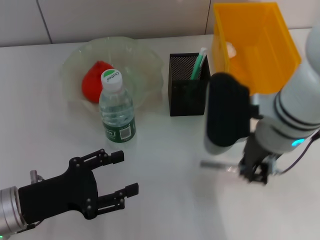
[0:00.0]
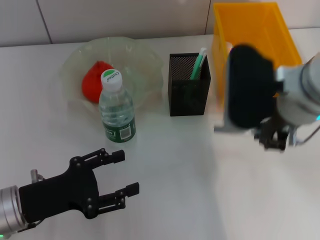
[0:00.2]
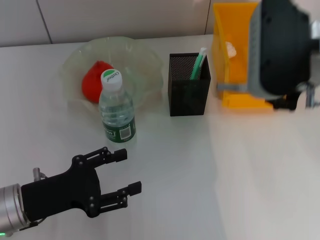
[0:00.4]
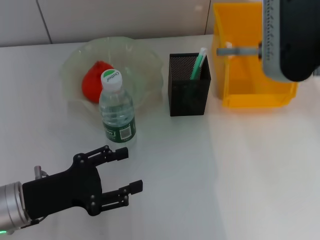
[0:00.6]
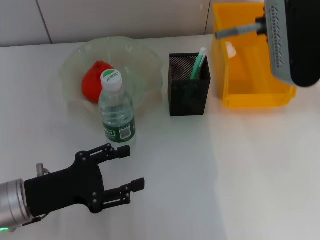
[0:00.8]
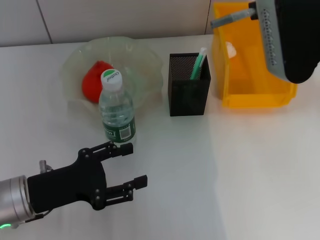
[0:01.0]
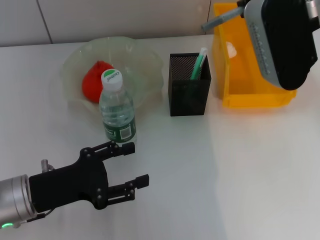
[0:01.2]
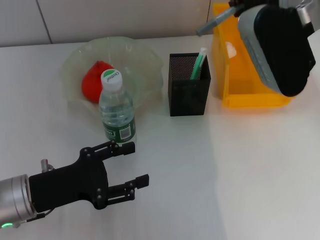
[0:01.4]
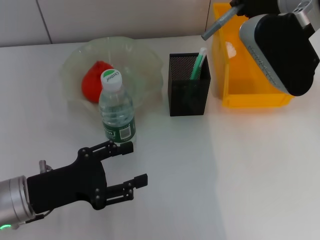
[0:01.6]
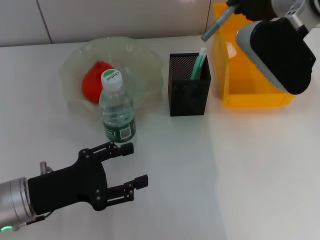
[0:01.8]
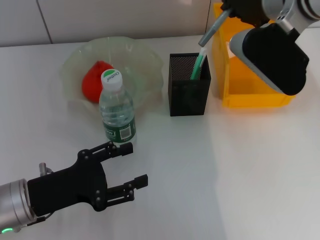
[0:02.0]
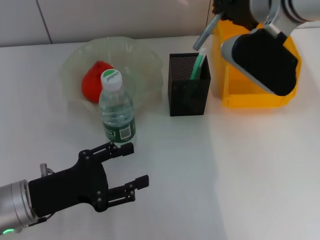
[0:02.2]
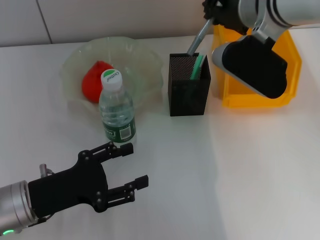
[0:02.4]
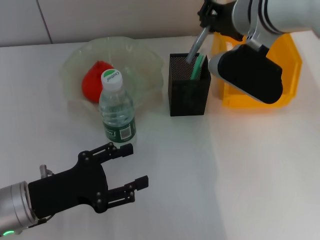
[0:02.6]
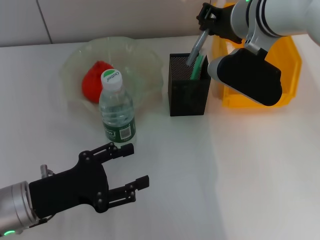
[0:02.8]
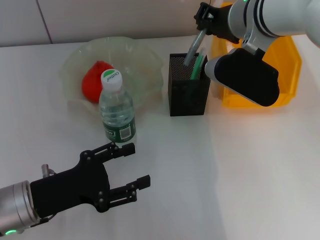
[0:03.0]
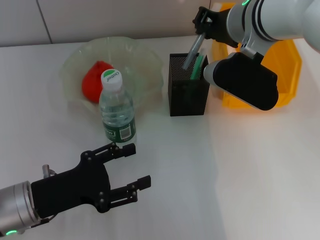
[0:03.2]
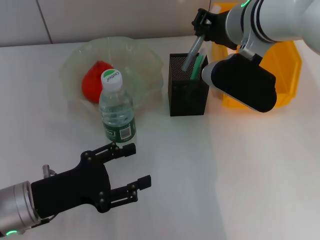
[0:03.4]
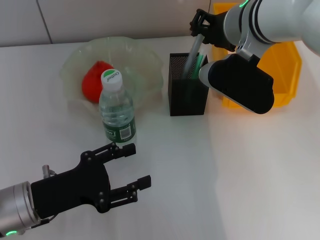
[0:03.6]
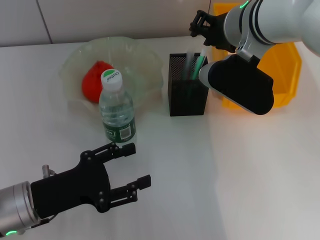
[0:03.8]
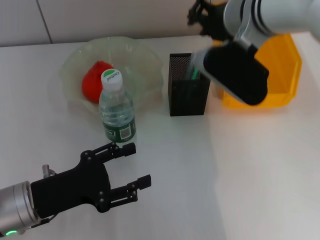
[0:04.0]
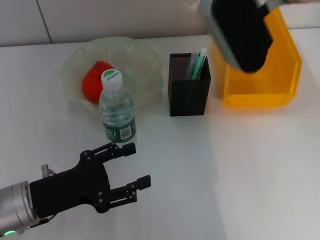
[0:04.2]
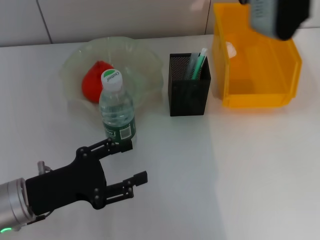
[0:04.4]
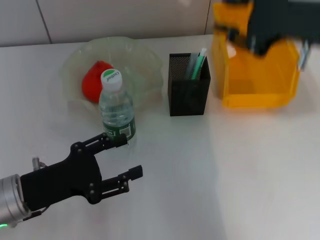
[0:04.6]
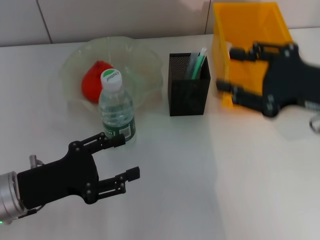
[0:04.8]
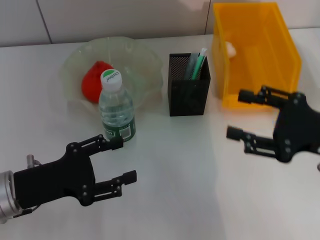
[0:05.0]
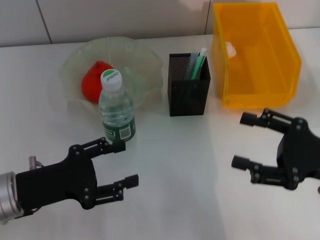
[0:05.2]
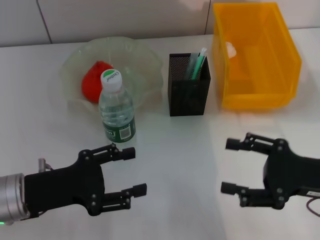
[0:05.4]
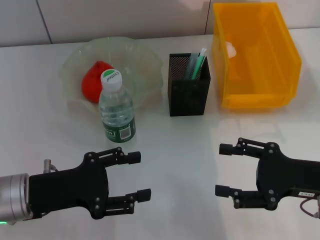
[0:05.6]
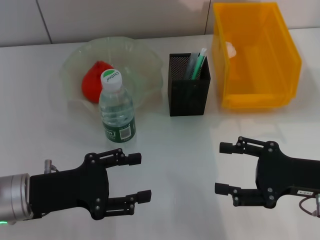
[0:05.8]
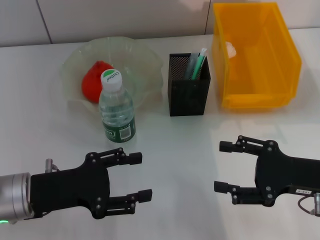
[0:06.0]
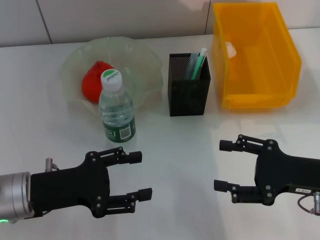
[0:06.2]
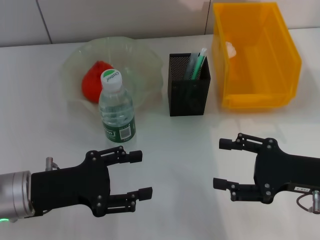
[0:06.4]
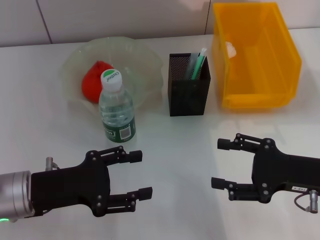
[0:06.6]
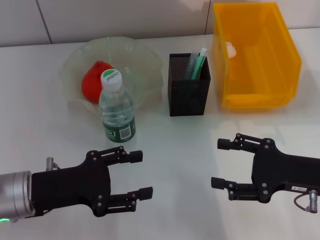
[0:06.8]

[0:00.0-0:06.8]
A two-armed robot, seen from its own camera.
Step, 0.0 to 4.0 s: Place the gray glue into the pen holder with the right hand.
0.0 to 1.4 s: The right gripper travels upward and forward by approximately 10 cm.
1.4 to 2.8 s: The right gripper travels downward by some 5 cm.
2.8 to 4.0 s: There are only small adjustments of the grippers.
4.0 to 5.4 s: The right gripper moves backward, to the right and downward, roughly 25 cm, and opens its fingers.
5.4 to 6.8 s: The grippers stay close to where they were, moving slightly.

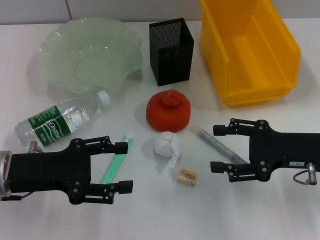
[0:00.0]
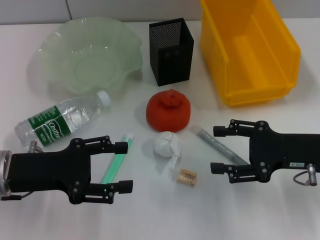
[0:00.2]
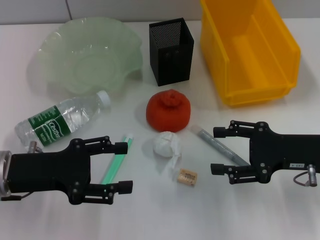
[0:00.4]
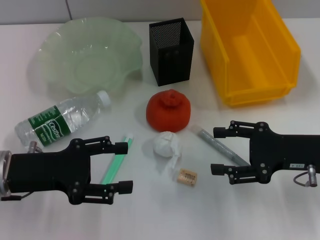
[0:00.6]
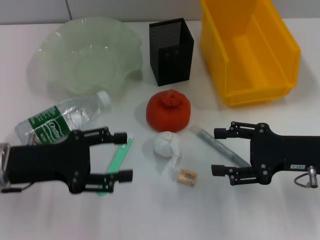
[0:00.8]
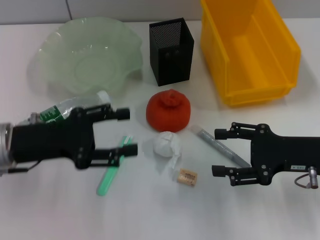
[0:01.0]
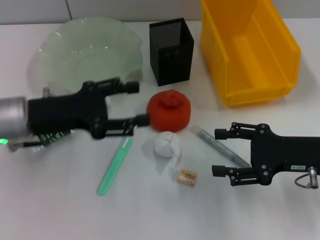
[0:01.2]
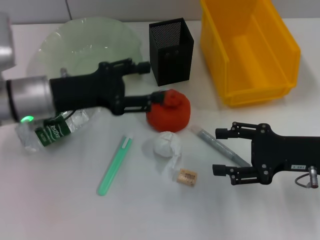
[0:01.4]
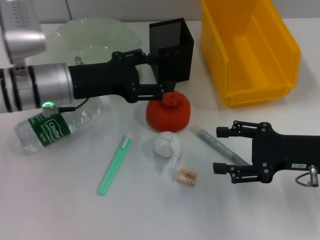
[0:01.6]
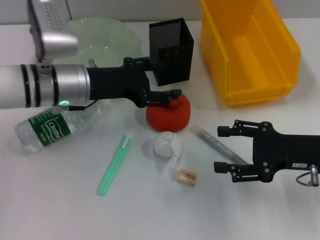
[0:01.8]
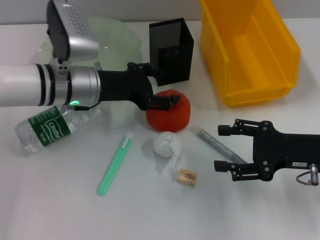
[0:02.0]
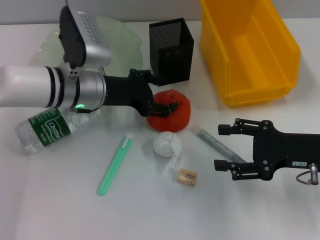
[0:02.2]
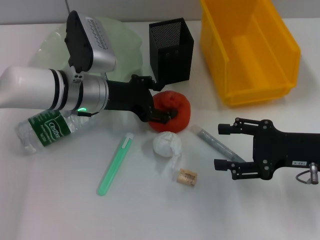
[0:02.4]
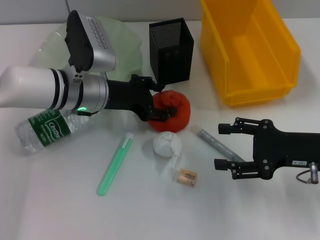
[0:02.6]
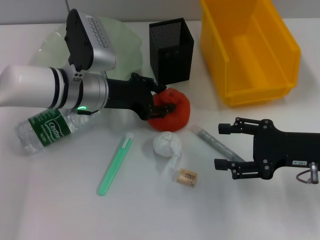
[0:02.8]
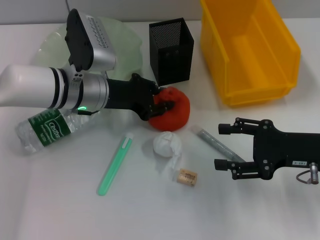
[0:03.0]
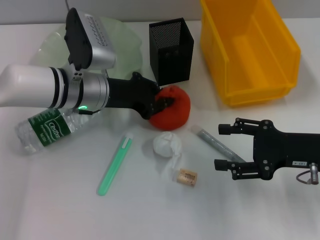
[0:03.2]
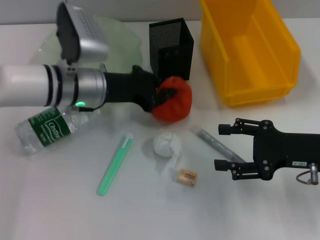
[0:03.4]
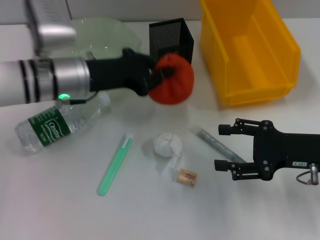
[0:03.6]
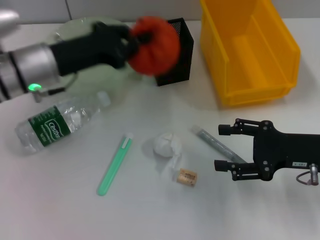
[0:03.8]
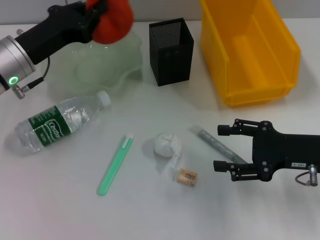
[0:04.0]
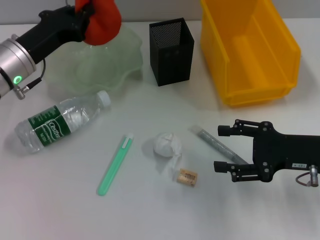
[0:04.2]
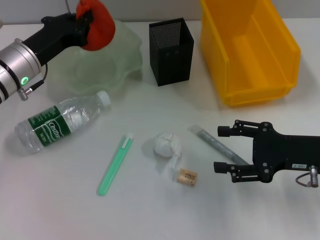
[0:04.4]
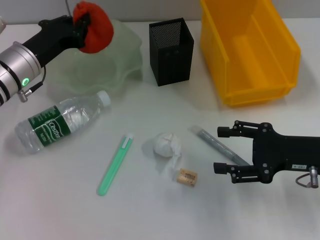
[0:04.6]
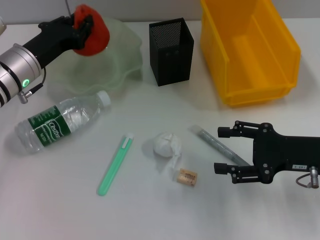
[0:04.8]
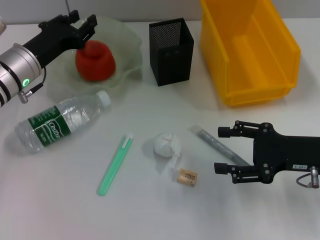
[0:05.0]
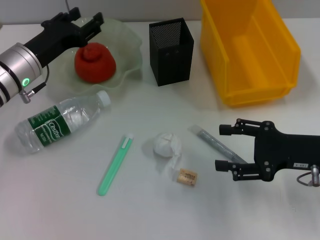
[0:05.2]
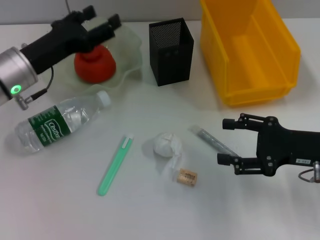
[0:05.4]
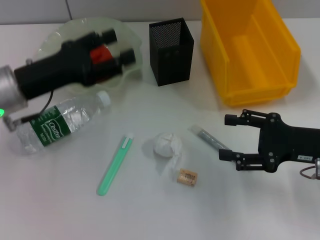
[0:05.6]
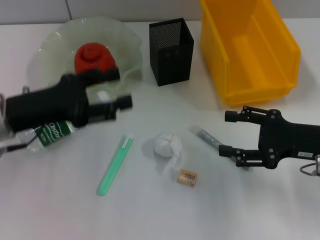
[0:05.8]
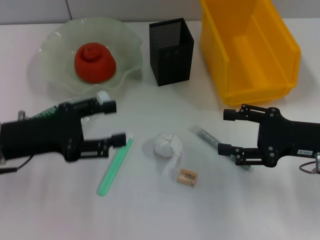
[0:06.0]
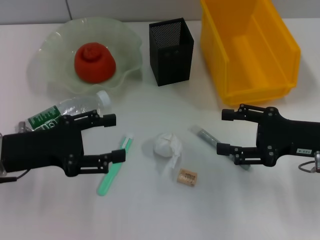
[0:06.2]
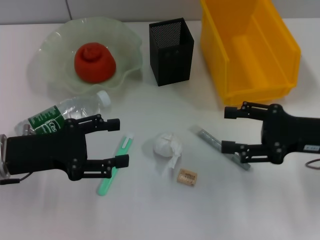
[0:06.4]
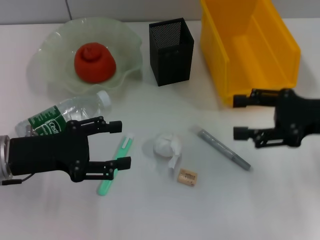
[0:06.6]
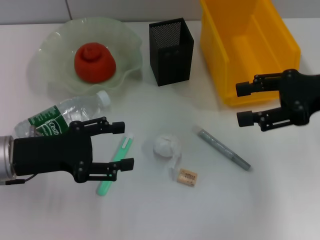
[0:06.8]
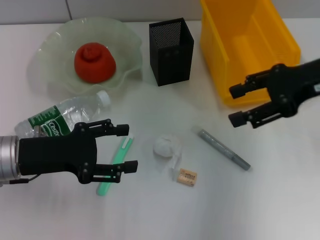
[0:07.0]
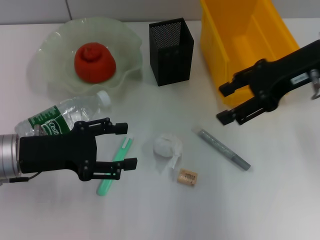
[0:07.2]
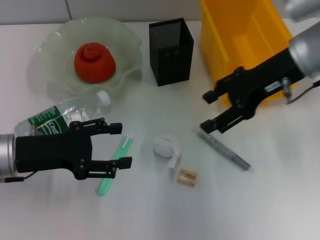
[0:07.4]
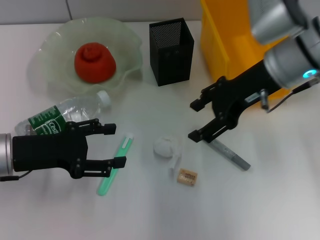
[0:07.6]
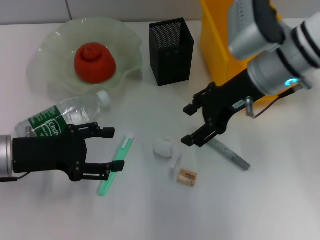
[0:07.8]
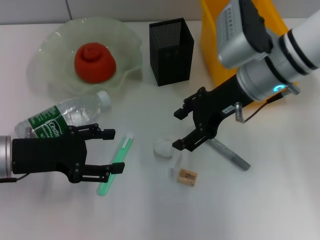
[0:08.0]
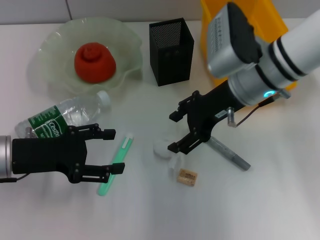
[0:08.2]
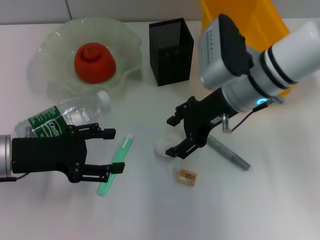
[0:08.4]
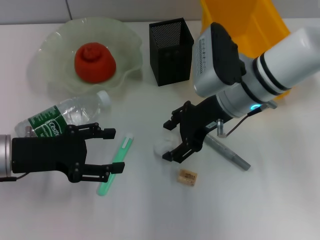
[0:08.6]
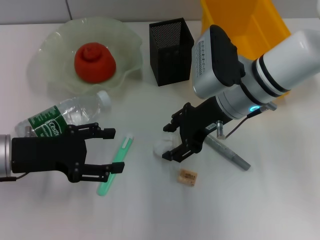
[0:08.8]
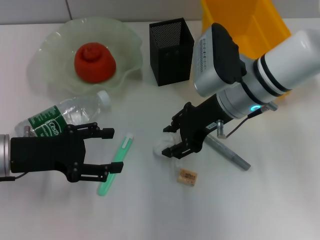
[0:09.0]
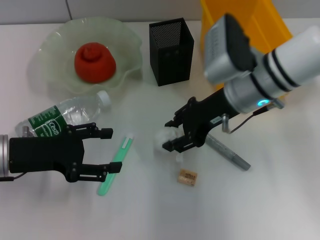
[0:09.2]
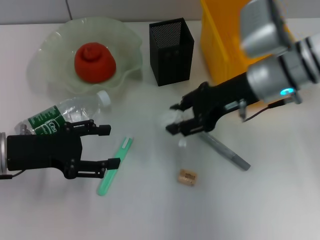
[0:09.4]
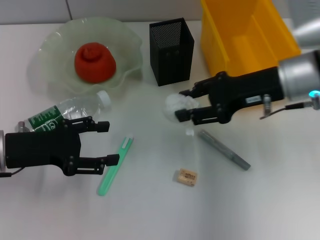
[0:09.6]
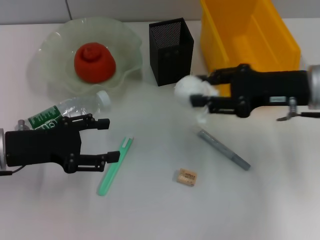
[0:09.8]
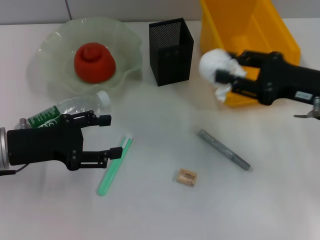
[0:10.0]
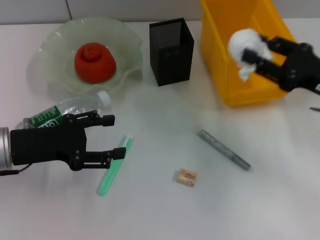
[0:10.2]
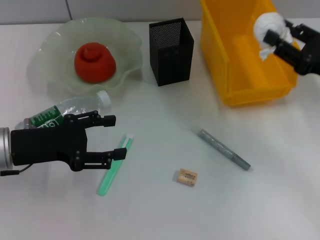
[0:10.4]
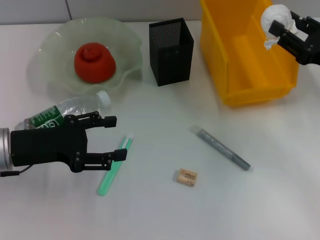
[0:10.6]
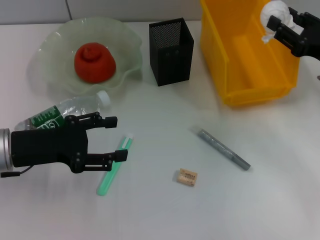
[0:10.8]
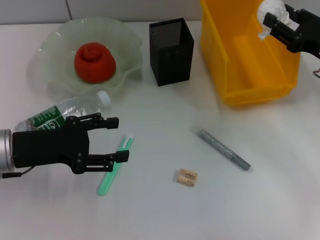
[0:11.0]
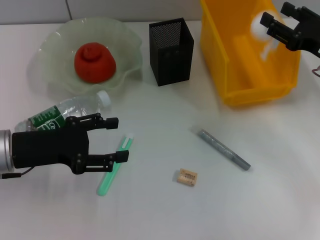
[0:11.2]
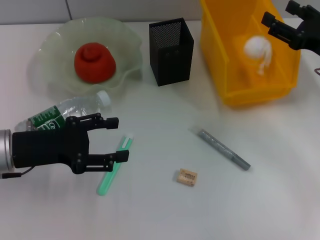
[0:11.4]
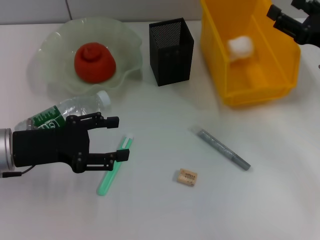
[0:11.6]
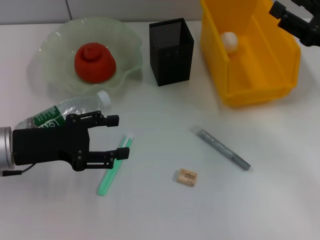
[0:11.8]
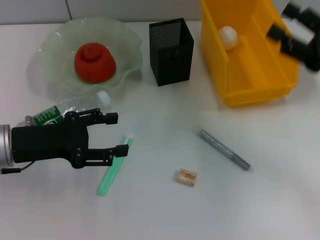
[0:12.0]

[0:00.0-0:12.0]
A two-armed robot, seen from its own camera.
Step, 0.0 to 3.2 s: Grab the orange with the left hand.
Step, 3.4 to 4.8 s: Place the orange into the fruit bowl with the left hand.
Step, 5.0 to 9.0 s: Grab the paper ball with the right hand.
Step, 9.2 to 11.2 s: Place the paper ball into the trash can with the right hand.
0.0 to 1.6 s: The left gripper goes about 15 cm forward and to the right.
1.6 to 3.0 s: The left gripper ends up approximately 5 cm from where it was.
3.0 to 4.4 s: The left gripper shifts approximately 10 cm to the left, and closes its fingers.
4.4 to 6.0 s: The left gripper is displaced backward by some 10 cm, and opens.
6.0 to 7.6 s: The right gripper shifts some 15 cm to the left, upward and forward.
7.6 to 9.0 s: The right gripper is displaced downward by approximately 5 cm.
9.0 to 10.4 s: The right gripper heads to the right, covering approximately 20 cm.
10.4 to 12.0 s: The right gripper opens up.

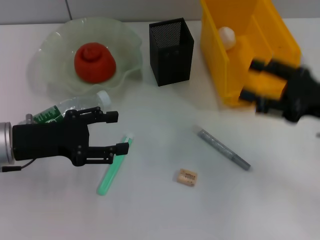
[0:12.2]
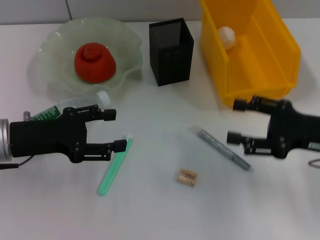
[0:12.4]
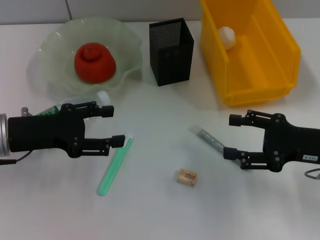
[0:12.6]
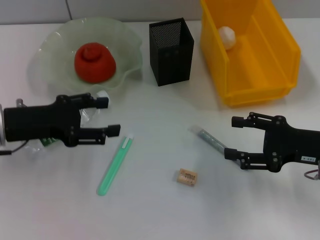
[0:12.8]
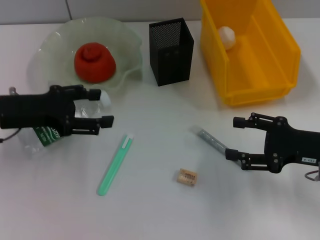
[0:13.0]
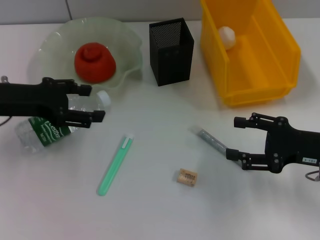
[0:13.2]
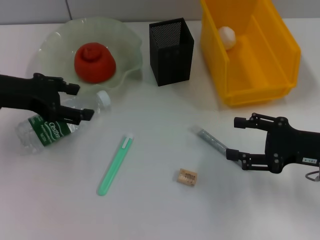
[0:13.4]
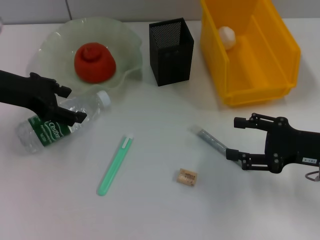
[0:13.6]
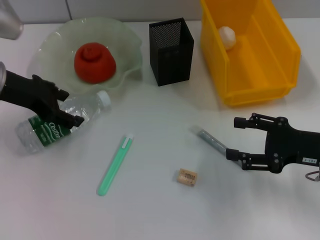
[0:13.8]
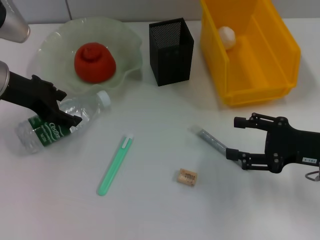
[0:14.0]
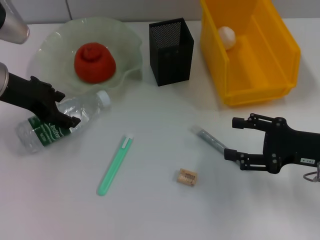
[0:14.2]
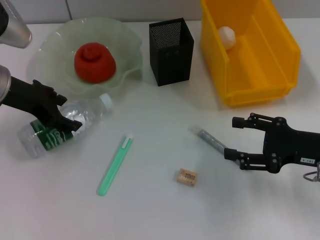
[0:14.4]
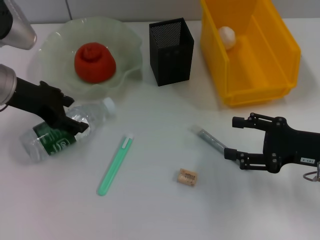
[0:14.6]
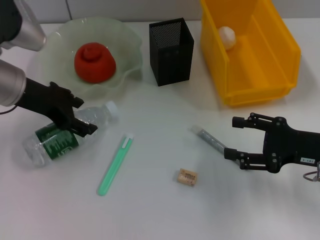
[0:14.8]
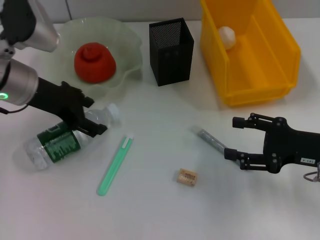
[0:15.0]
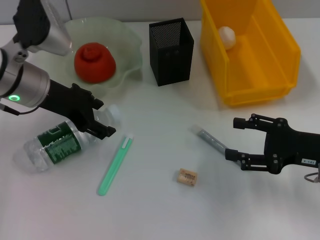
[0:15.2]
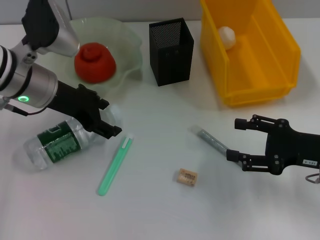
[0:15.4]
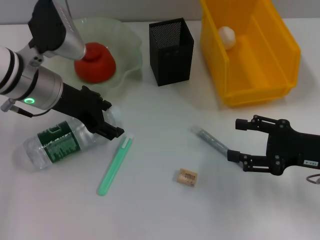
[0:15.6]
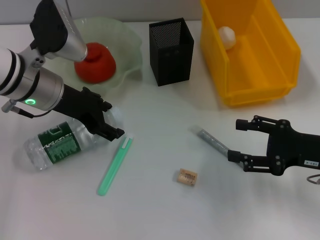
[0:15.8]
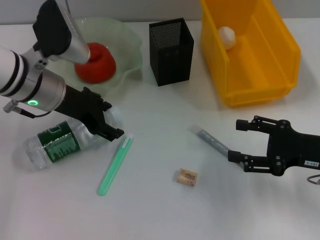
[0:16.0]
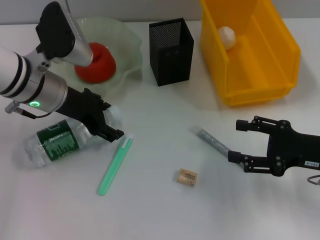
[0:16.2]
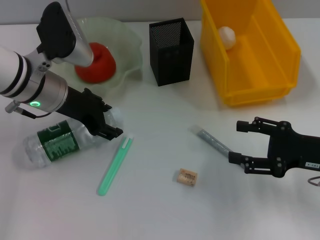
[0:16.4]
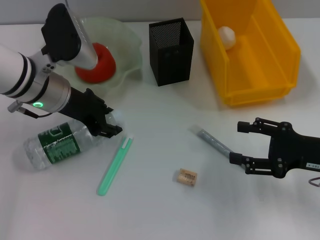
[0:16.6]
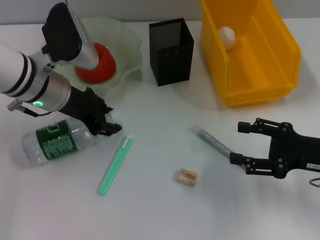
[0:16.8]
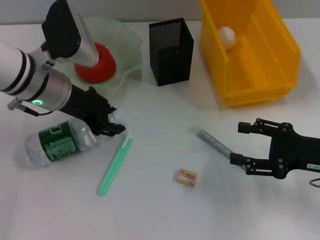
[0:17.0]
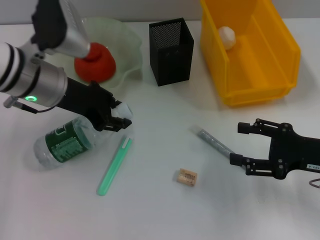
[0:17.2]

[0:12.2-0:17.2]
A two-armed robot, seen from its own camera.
Step, 12.2 to 16.6 s: Grab the water bottle with the left hand.
12.2 to 13.8 s: The left gripper moves upward and forward, about 10 cm.
13.8 to 15.6 s: The left gripper travels to the right by roughly 5 cm.
15.6 to 17.2 s: The left gripper closes up.
